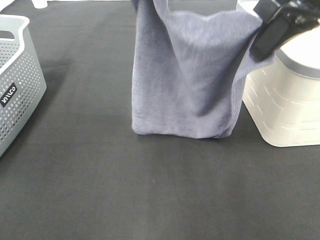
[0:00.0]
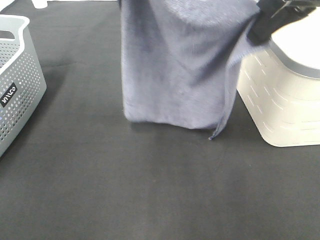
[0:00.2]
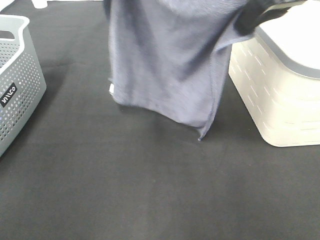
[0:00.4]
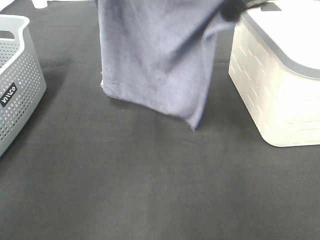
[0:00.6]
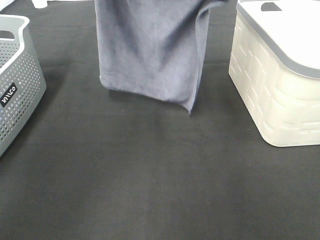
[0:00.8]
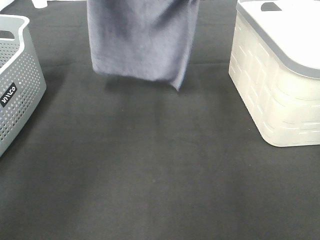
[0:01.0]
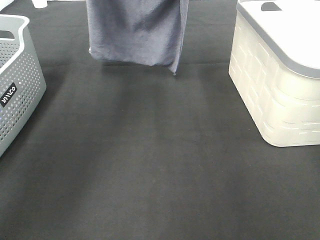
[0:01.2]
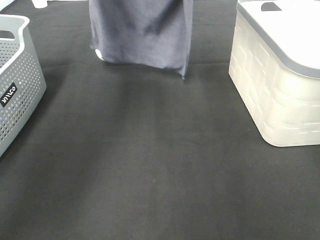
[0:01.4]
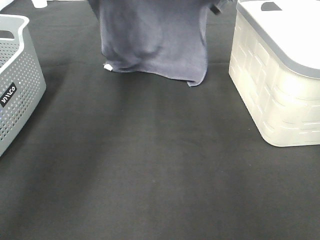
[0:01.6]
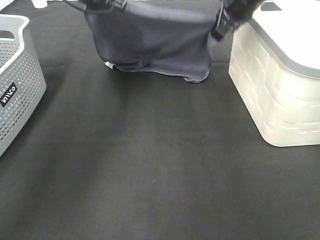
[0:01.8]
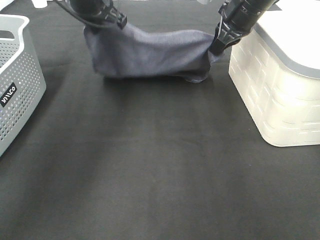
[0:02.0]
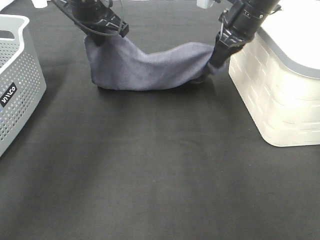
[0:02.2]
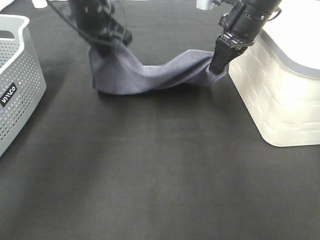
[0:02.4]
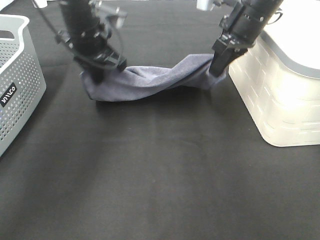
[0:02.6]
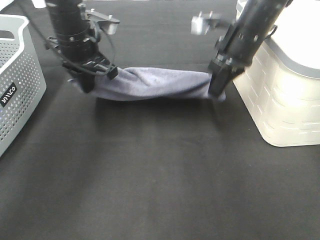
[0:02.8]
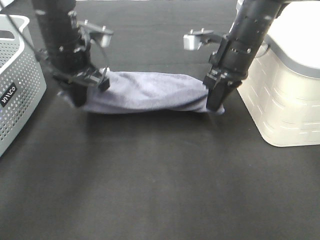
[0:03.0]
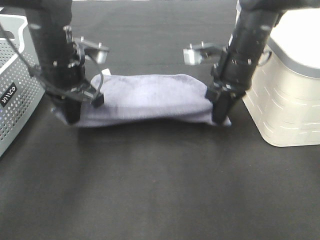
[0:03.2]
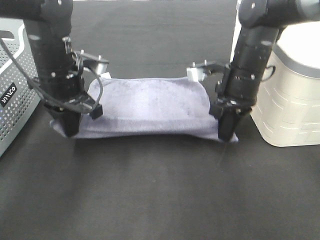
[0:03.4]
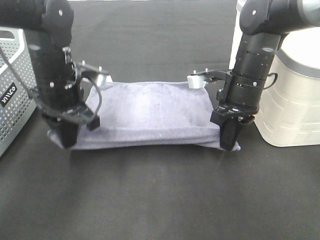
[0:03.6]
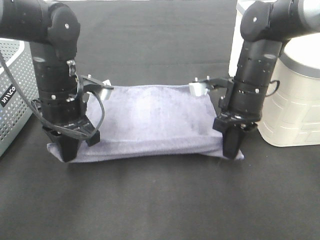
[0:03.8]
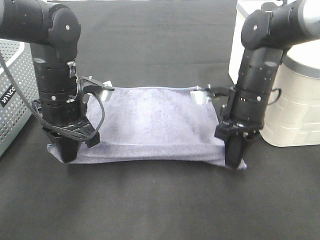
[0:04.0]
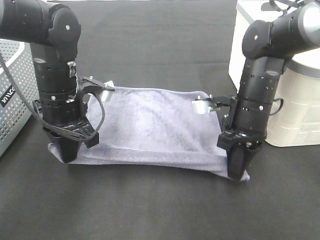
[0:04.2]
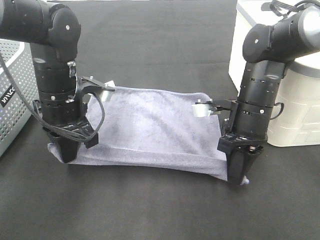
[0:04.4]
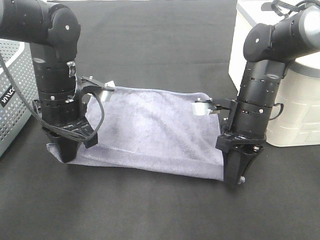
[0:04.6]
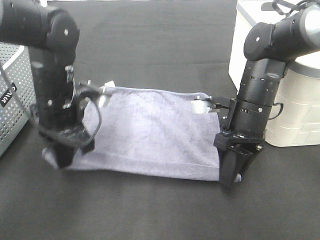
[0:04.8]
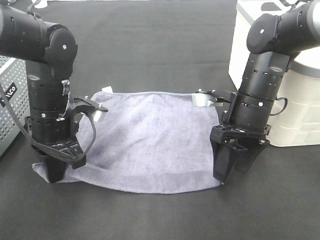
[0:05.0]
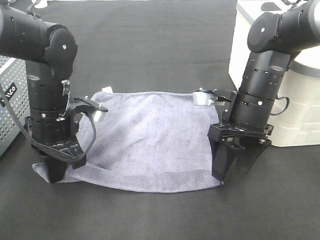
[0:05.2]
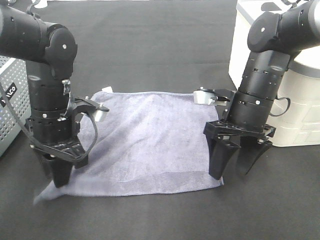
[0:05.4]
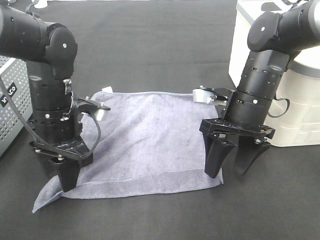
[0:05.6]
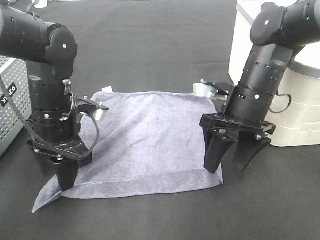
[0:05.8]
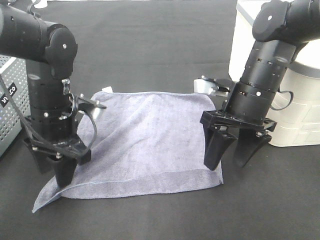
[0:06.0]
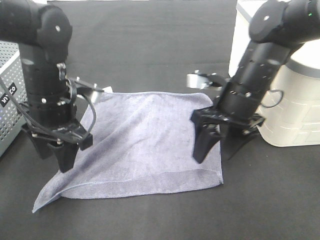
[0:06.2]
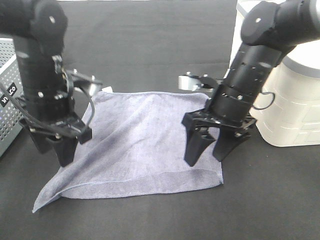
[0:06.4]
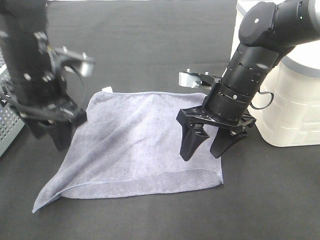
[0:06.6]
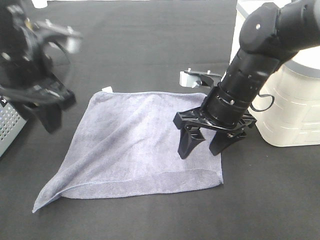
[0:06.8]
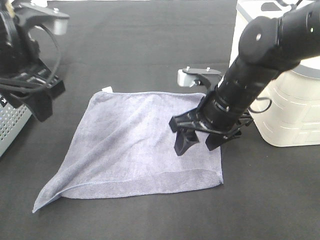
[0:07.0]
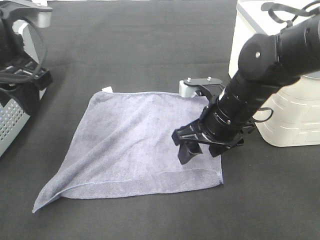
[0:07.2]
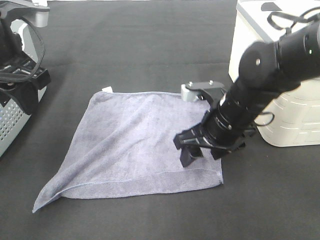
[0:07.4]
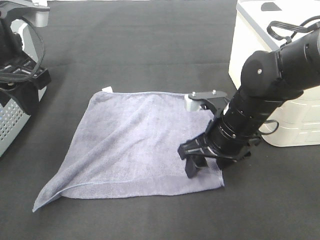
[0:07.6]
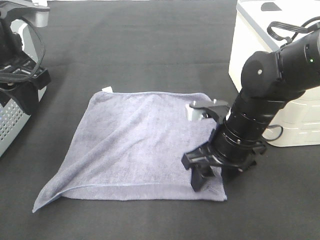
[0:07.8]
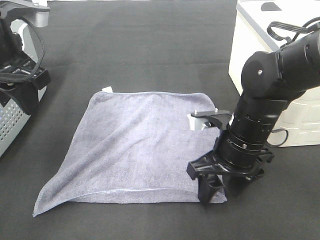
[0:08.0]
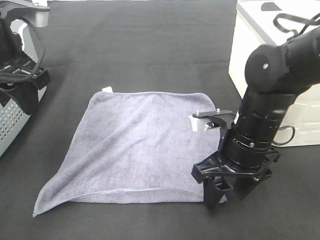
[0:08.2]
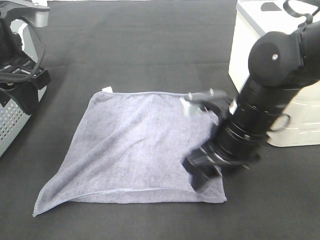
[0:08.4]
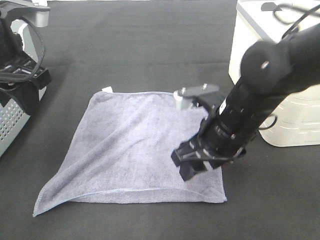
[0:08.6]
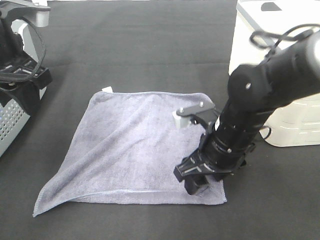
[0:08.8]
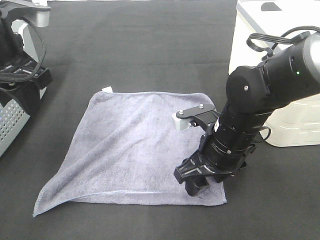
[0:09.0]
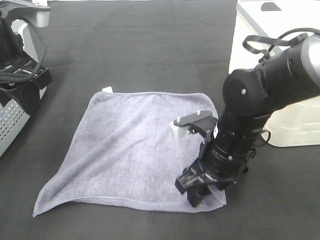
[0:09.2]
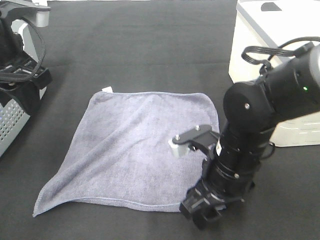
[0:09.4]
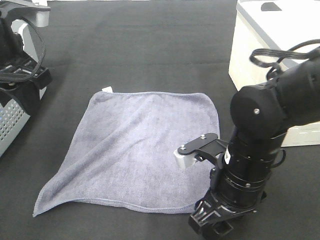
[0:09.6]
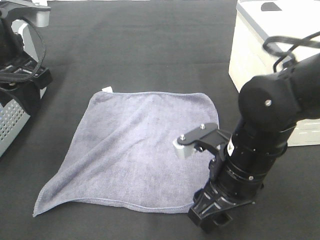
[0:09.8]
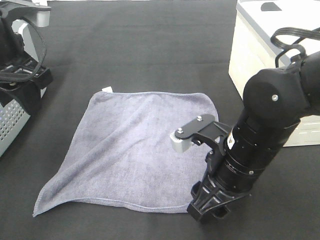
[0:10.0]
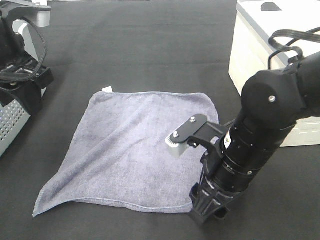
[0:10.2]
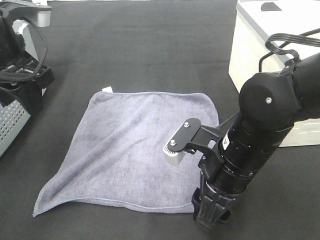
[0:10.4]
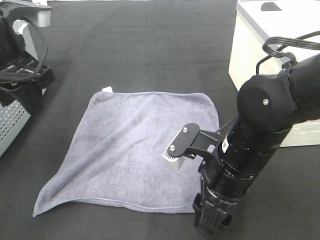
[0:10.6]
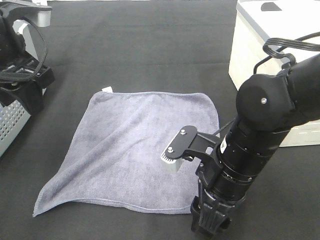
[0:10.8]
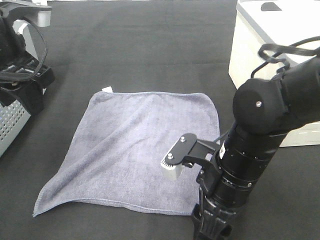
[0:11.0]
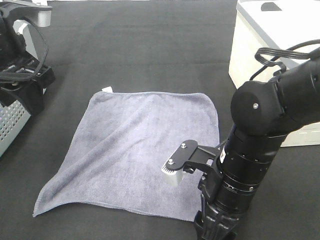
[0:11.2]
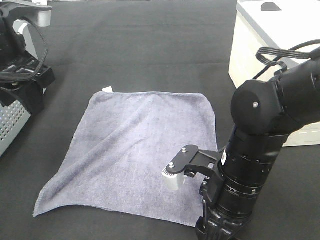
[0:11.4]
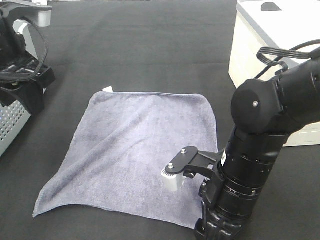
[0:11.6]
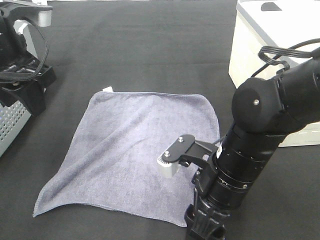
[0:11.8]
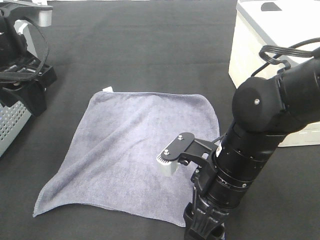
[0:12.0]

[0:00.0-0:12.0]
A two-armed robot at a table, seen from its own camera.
Task of the whole recording: Remove the towel and place it.
Step, 0:01.4 to 0:06.4: Right hand:adjust the gray towel.
0:00.0 to 0:01.6: The left gripper goes some 20 cm forward, downward and to the left; the right gripper heads forward, covering approximately 20 cm.
0:01.6 to 0:03.0: The right gripper goes about 15 cm downward and backward. Meanwhile the left gripper heads backward and downward, covering roughly 15 cm.
0:03.0 to 0:04.4: The left gripper goes some 5 cm backward; the right gripper travels backward and downward by some 10 cm.
0:04.4 to 0:06.0: The left gripper opens up, while the right gripper opens its fingers.
0:06.0 to 0:07.6: The left gripper travels upward by about 15 cm. Meanwhile the right gripper changes place by approximately 5 cm.
0:07.6 to 0:09.0: There are only small adjustments of the grippers.
0:09.0 to 0:10.4: The right gripper ends up roughly 5 cm from where it was.
0:10.4 to 0:12.0: The grippers make only small movements.

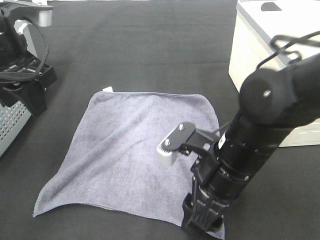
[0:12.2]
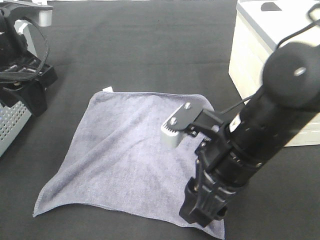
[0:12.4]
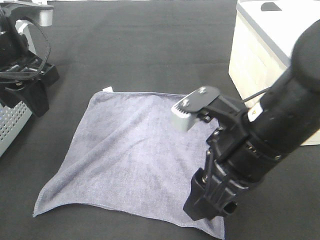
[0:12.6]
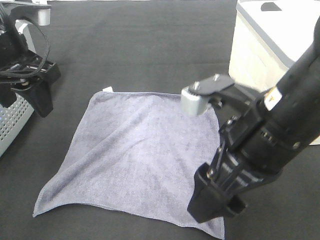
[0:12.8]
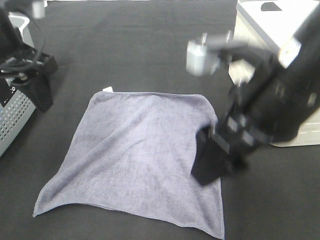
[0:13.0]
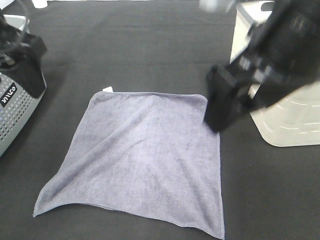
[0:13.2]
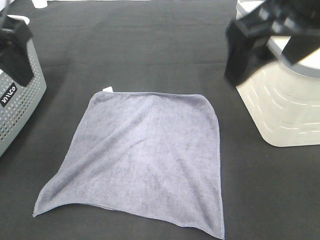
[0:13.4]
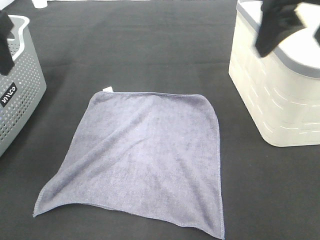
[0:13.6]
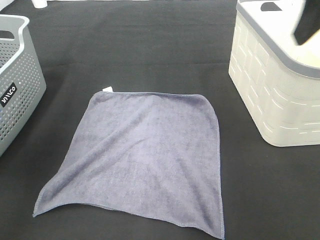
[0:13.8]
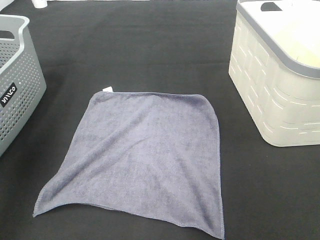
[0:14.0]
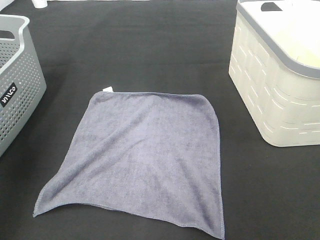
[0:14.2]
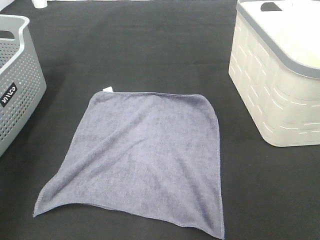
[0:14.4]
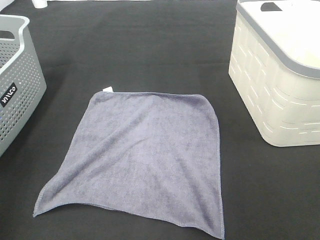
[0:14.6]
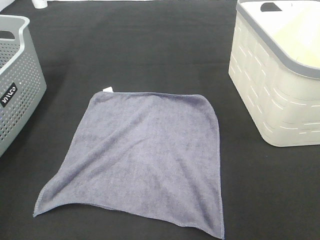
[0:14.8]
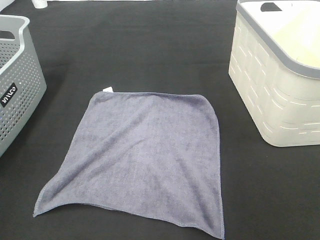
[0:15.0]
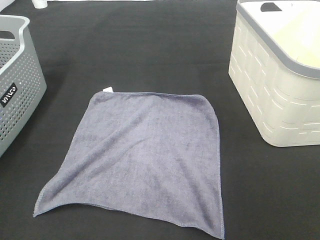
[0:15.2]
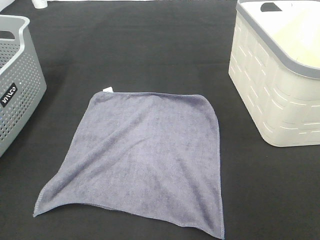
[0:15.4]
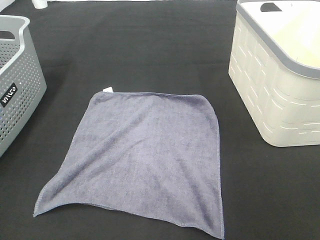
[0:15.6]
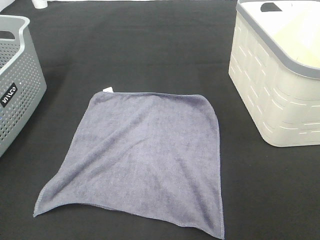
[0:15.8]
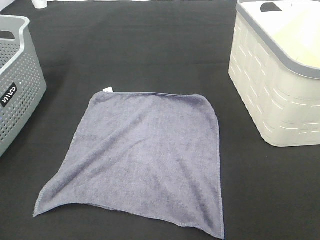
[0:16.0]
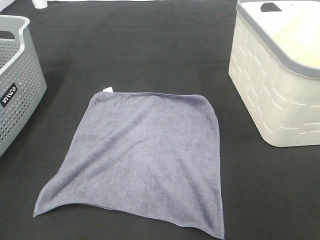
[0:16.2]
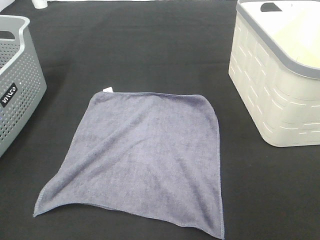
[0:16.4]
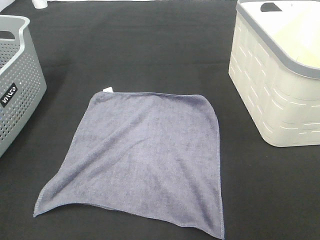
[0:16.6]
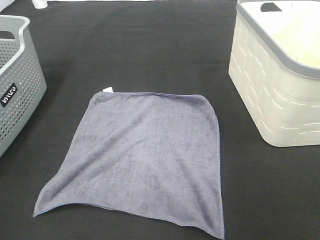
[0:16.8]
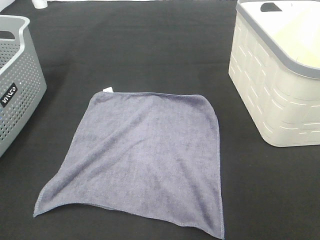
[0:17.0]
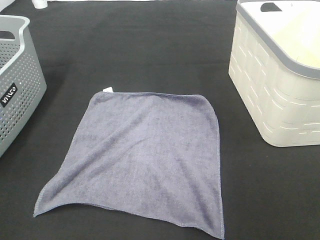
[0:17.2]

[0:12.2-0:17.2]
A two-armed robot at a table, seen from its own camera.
Task of the whole recording: Remove the towel and place it.
0:12.2 to 0:13.8: The left gripper goes roughly 10 cm upward and to the left. Meanwhile the right gripper goes about 30 cm upward and to the right.
0:13.8 to 0:15.6: Both grippers travel together backward, approximately 30 cm.

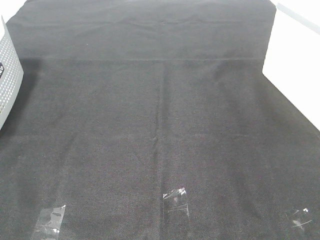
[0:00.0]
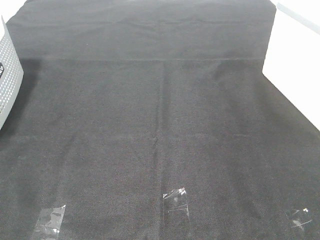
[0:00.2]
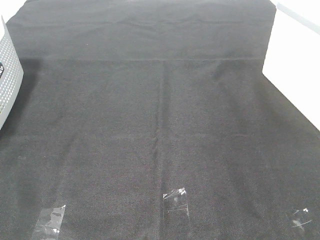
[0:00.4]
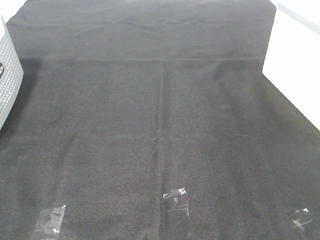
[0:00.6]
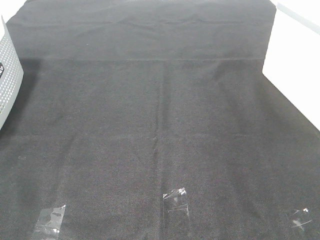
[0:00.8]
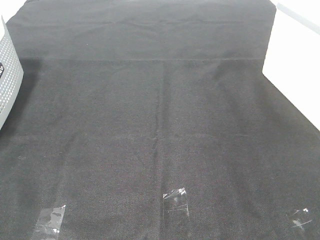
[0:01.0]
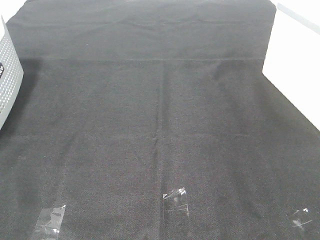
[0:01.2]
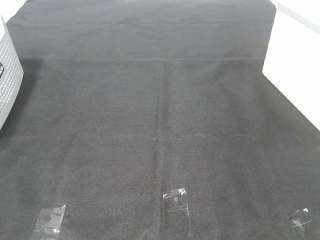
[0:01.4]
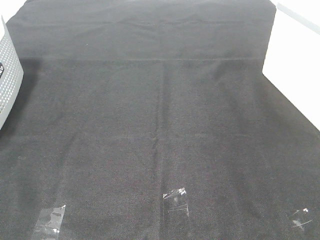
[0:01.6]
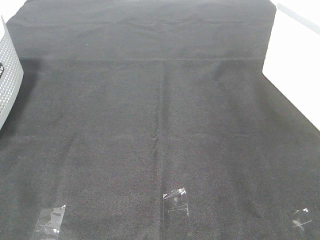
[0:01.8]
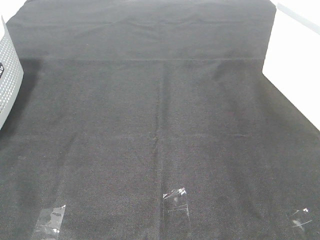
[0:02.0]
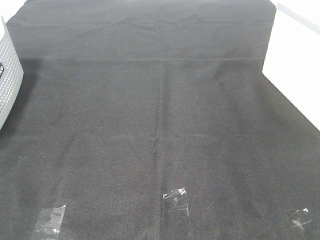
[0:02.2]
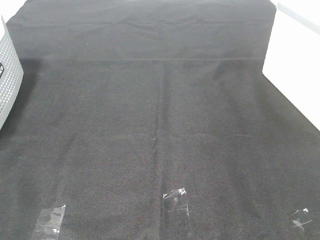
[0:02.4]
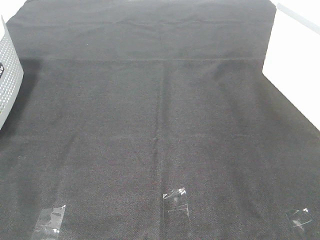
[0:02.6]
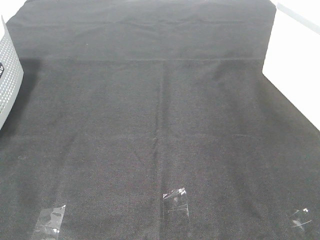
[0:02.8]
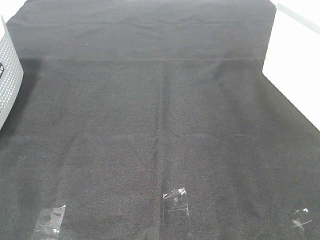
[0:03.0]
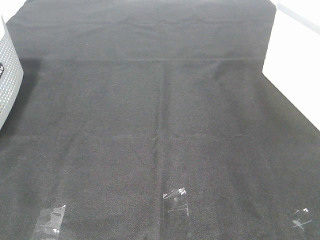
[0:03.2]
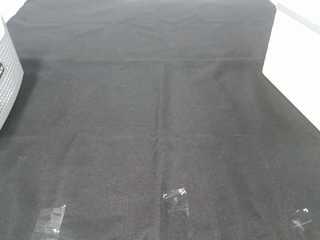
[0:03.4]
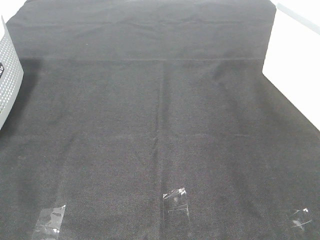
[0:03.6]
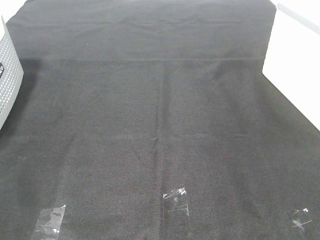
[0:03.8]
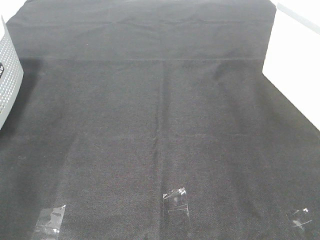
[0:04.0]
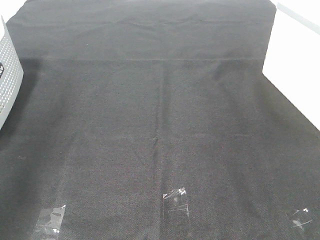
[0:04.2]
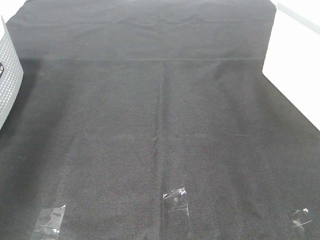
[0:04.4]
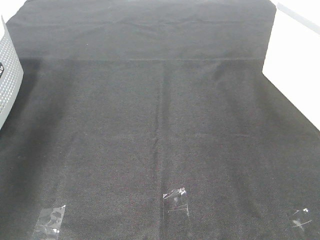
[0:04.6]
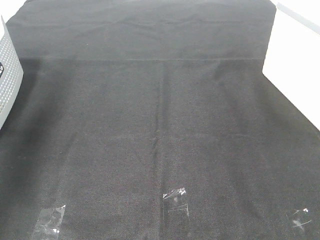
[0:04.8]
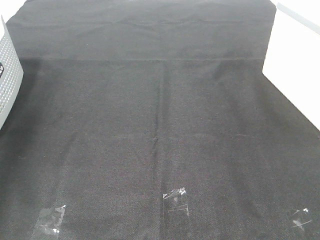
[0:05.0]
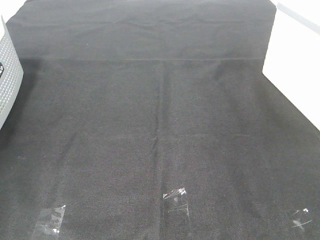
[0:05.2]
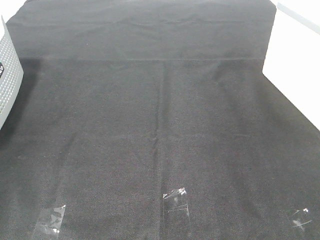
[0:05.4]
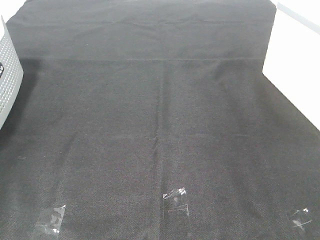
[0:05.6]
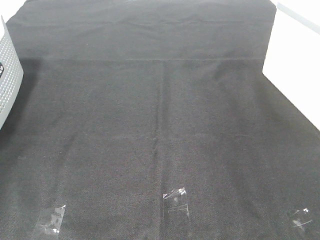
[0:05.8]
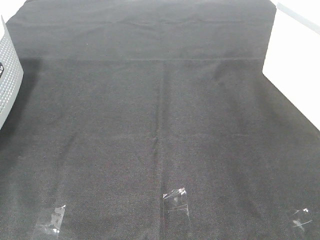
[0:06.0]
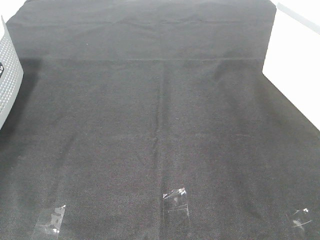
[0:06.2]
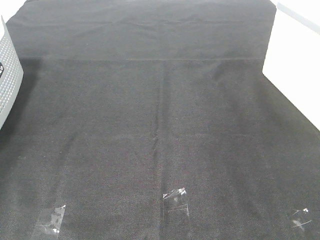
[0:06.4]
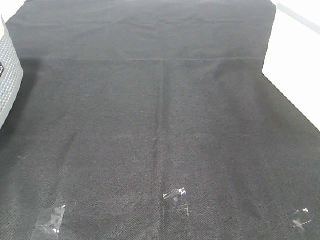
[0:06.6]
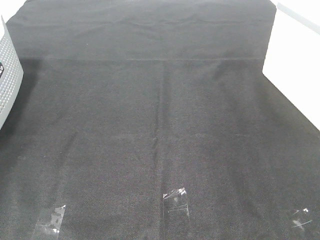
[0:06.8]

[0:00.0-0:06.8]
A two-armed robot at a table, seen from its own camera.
Task of the whole recording: Remove the towel and place it.
0:00.0 to 0:02.8: Both grippers stay put.
